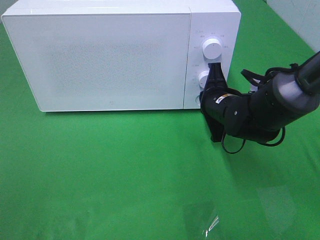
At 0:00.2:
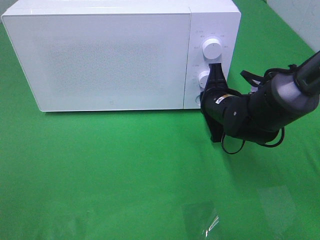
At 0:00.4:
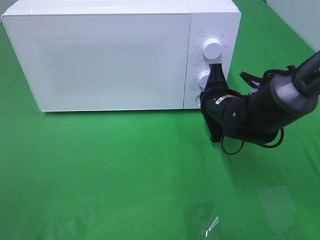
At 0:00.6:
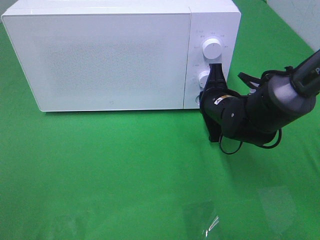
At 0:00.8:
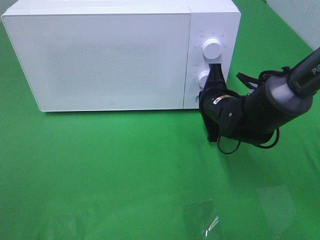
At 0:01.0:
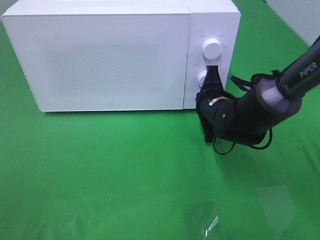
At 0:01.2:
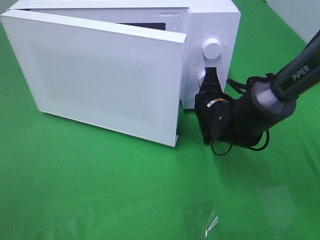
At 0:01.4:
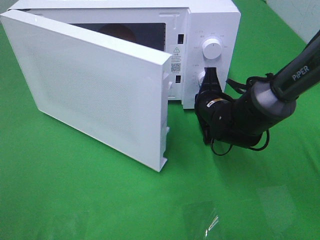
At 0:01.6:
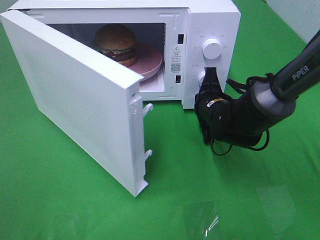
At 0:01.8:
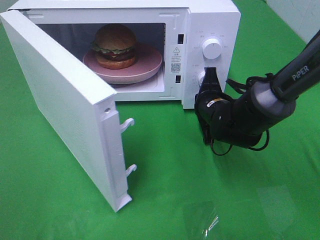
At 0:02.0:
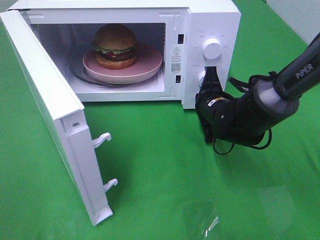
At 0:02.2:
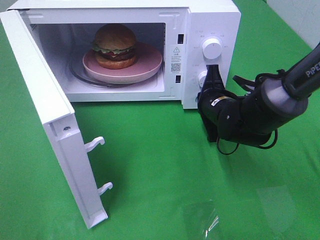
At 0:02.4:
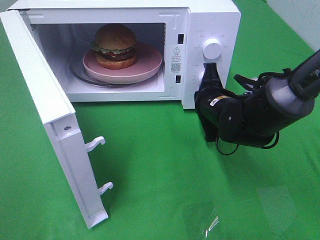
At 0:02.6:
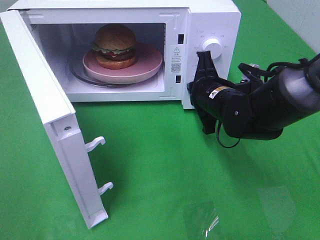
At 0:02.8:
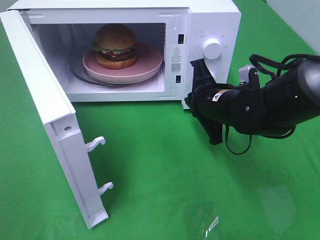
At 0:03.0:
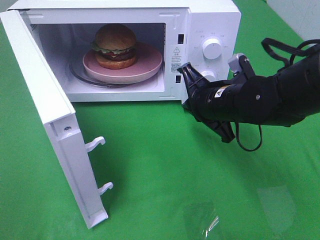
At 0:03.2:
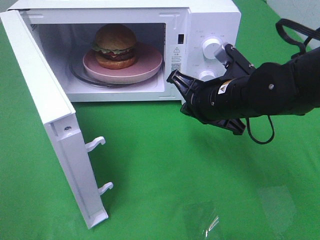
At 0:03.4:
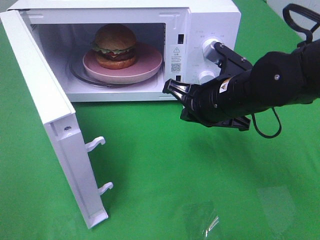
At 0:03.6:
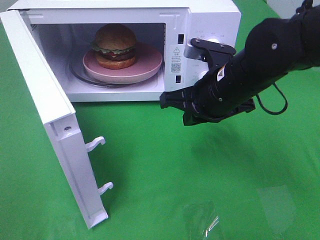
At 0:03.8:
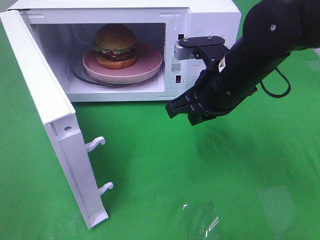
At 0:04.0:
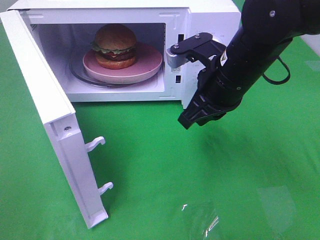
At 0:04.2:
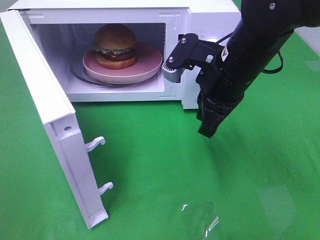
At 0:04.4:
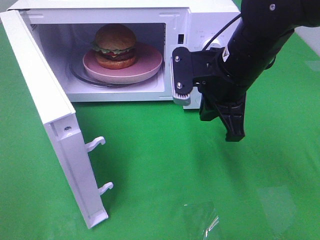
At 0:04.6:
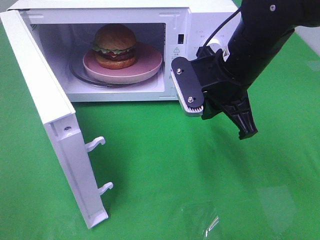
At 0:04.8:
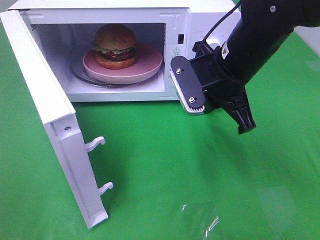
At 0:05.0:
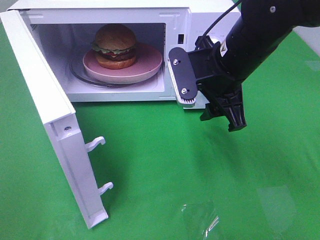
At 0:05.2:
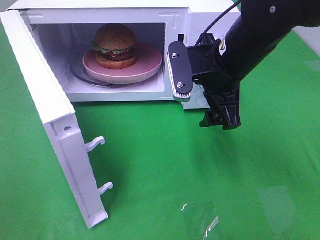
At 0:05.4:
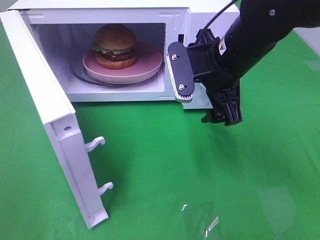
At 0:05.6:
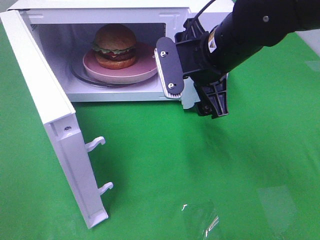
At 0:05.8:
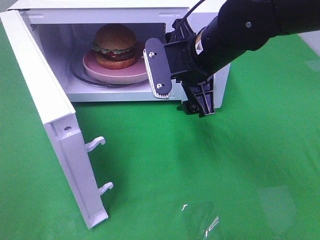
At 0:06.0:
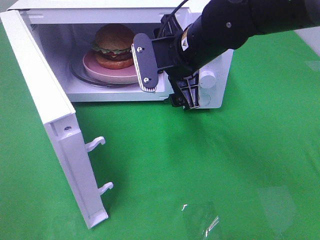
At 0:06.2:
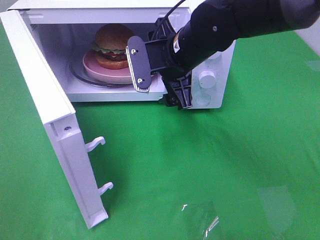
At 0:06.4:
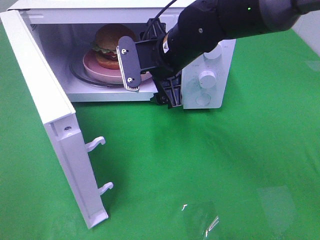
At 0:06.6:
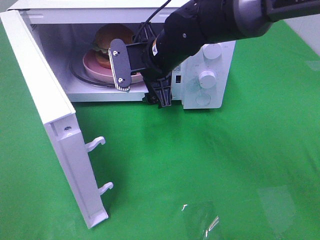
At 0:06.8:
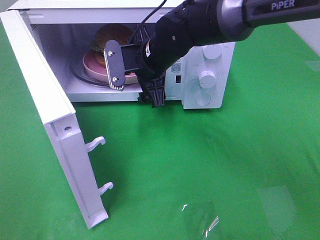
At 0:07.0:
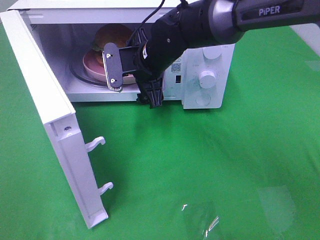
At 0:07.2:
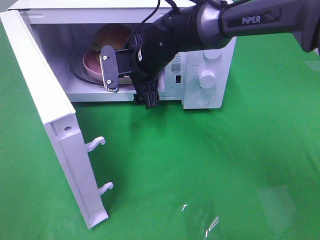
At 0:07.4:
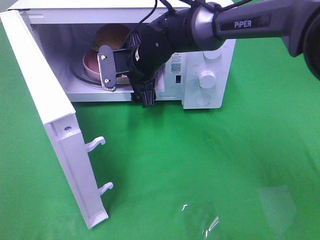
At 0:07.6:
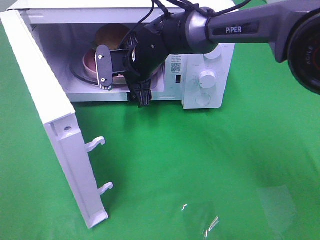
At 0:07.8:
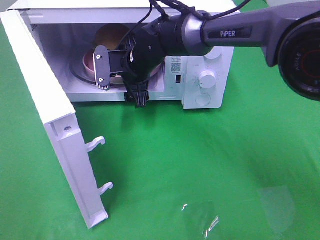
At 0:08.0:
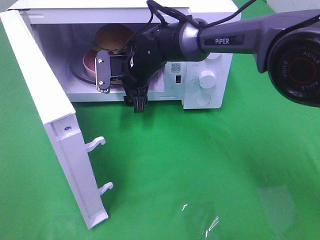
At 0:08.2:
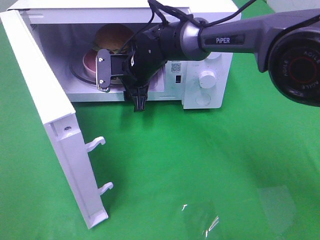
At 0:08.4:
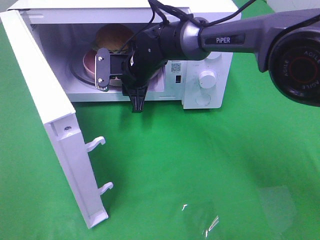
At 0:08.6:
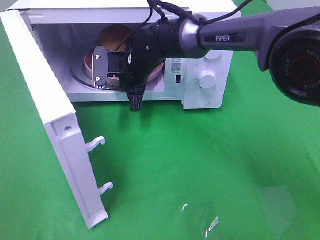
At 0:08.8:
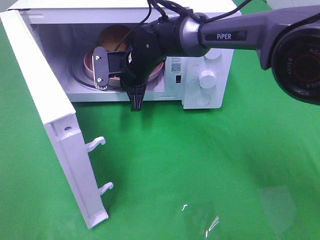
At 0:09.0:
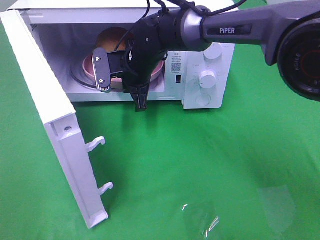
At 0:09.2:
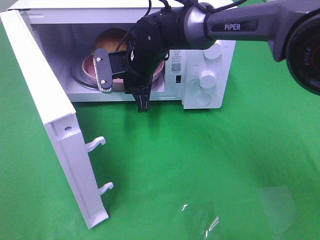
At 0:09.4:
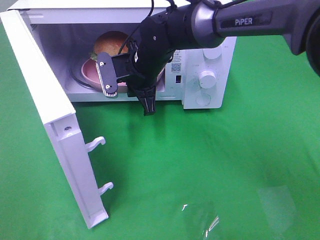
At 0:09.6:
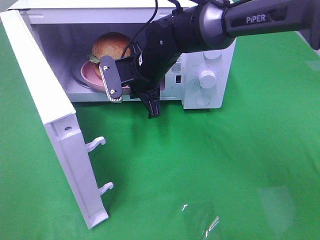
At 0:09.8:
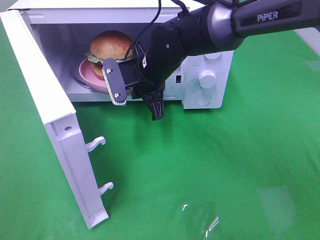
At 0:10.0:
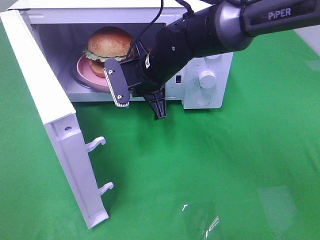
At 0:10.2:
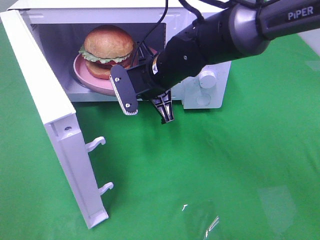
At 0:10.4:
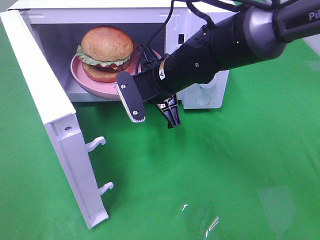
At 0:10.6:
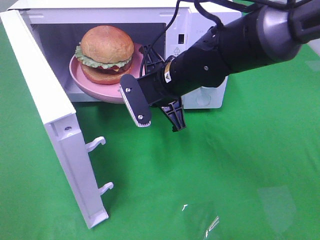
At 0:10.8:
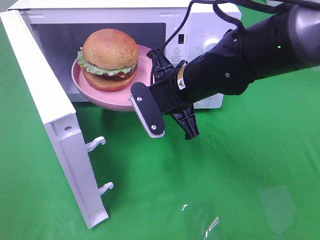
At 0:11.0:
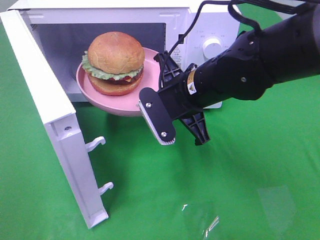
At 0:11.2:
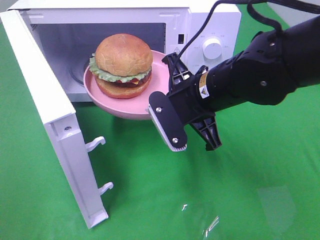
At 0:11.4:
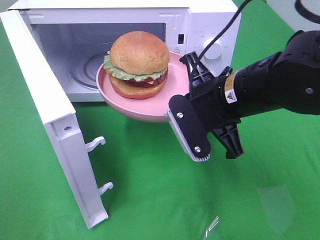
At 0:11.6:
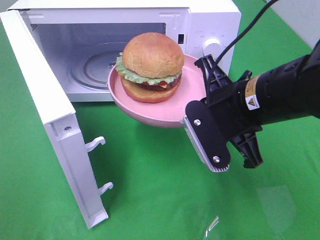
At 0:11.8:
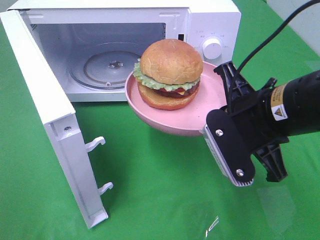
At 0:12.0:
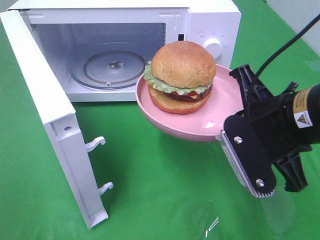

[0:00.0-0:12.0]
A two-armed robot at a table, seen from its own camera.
Task of the whole recording: Heat the burger.
Step, 0:00.0 to 0:02.4: Right hand: press the switch.
Step, 0:02.6 to 0:09.4: Right hand: grab the plate with the hamburger.
0:01.6 to 0:03.0: The right gripper goes roughly 10 cm upward and backward.
0:03.0 to 0:04.4: The right gripper goes approximately 5 cm upward.
0:04.4 to 0:06.0: The right gripper goes roughly 5 cm to the left, and opens.
0:06.0 to 0:07.6: The right gripper is displaced forward, to the left and downward by approximately 15 cm.
0:07.6 to 0:09.0: The right gripper closes its fingers.
0:09.0 to 0:10.4: The right gripper travels backward and to the right by about 10 cm.
0:10.4 to 0:12.0: The right gripper moves backward and to the right, about 20 cm.

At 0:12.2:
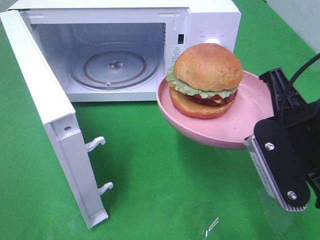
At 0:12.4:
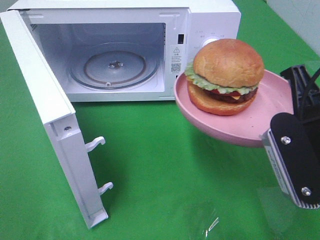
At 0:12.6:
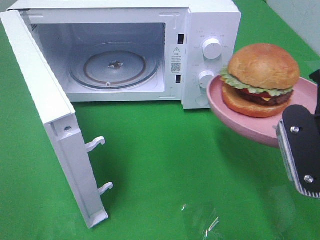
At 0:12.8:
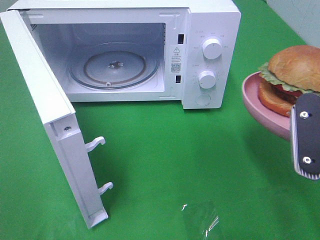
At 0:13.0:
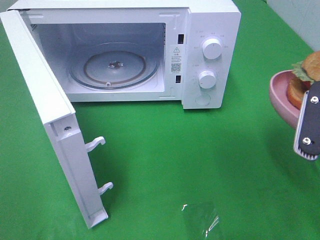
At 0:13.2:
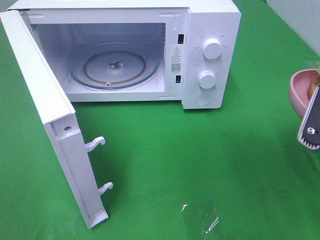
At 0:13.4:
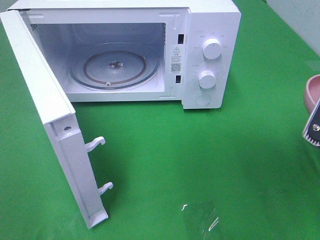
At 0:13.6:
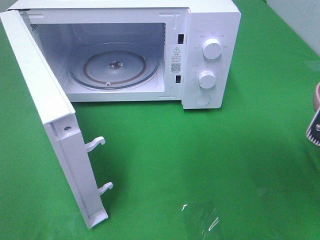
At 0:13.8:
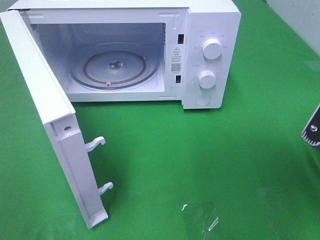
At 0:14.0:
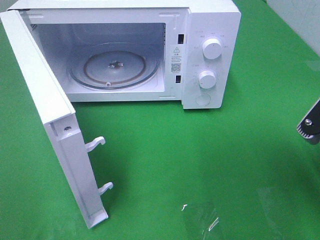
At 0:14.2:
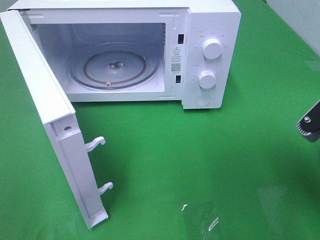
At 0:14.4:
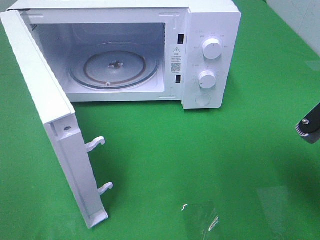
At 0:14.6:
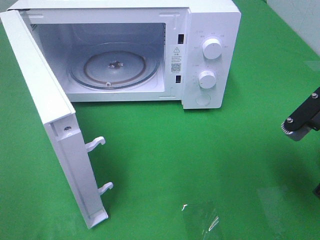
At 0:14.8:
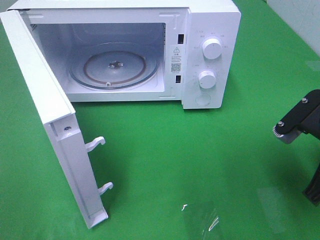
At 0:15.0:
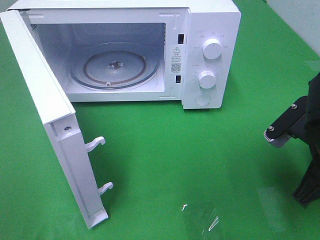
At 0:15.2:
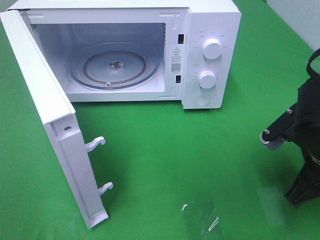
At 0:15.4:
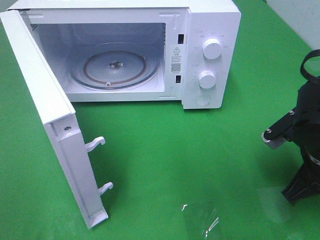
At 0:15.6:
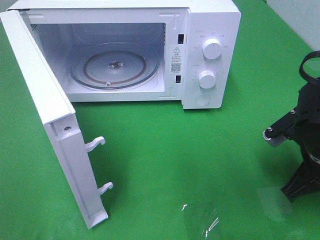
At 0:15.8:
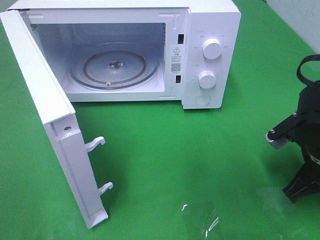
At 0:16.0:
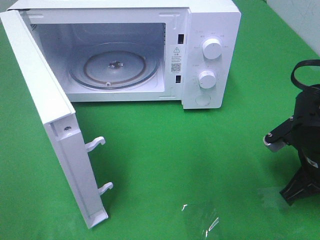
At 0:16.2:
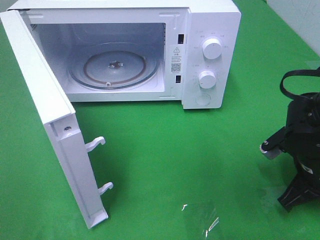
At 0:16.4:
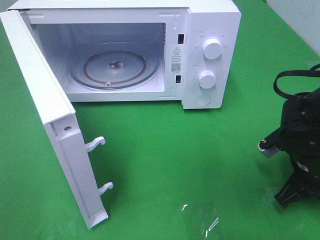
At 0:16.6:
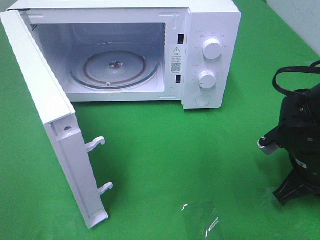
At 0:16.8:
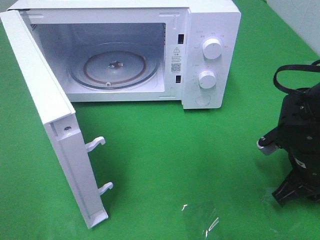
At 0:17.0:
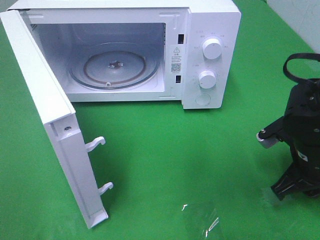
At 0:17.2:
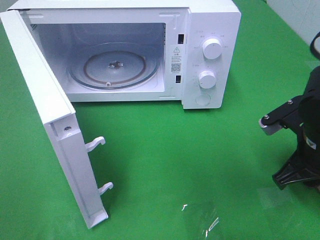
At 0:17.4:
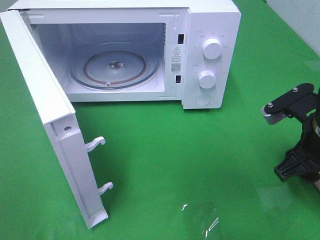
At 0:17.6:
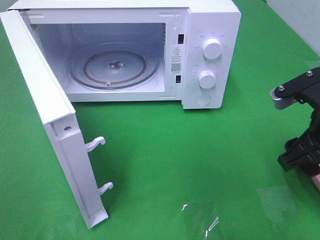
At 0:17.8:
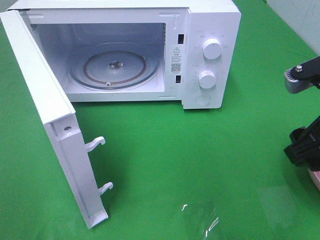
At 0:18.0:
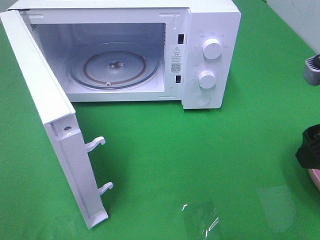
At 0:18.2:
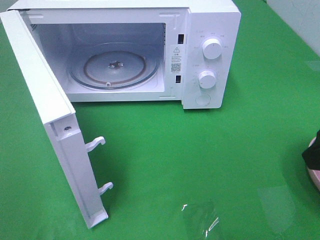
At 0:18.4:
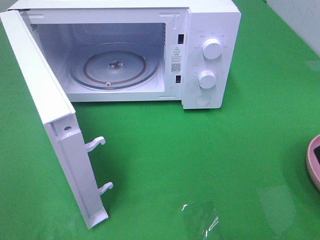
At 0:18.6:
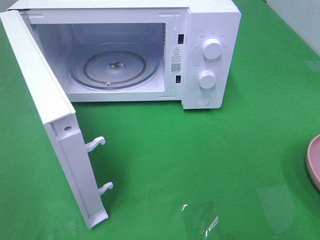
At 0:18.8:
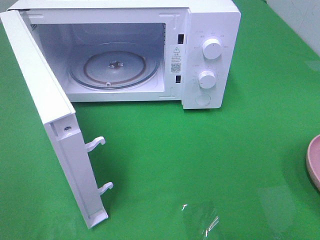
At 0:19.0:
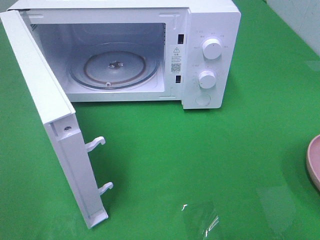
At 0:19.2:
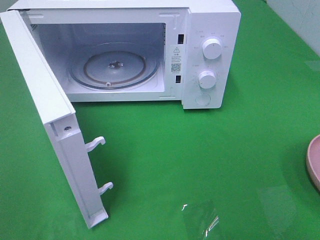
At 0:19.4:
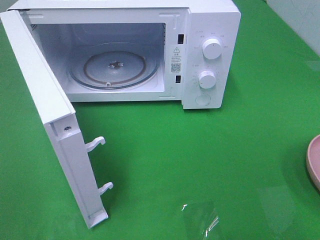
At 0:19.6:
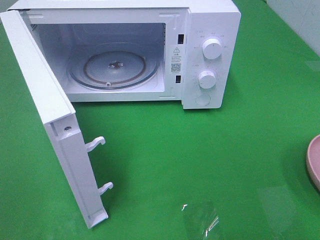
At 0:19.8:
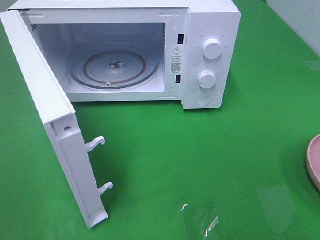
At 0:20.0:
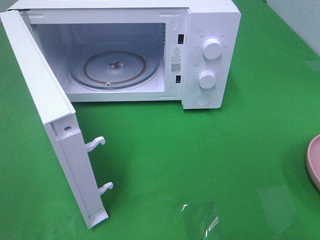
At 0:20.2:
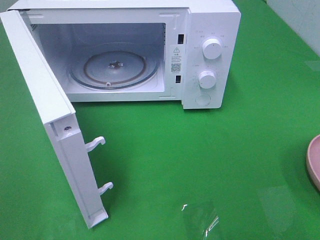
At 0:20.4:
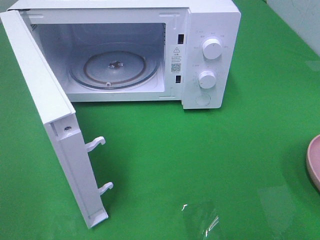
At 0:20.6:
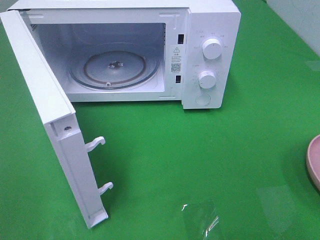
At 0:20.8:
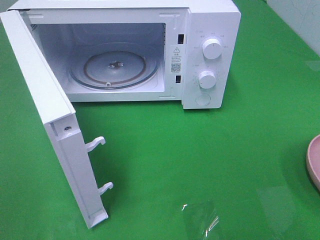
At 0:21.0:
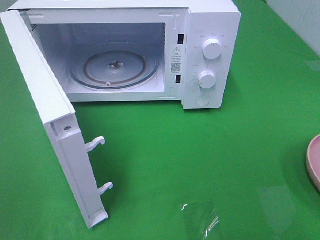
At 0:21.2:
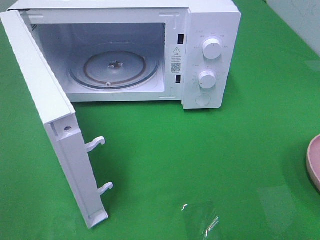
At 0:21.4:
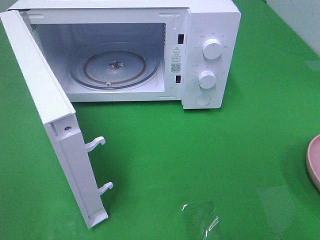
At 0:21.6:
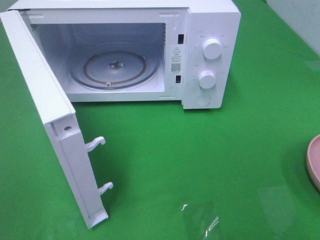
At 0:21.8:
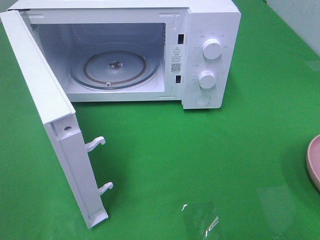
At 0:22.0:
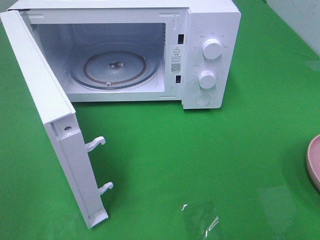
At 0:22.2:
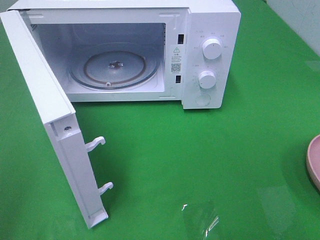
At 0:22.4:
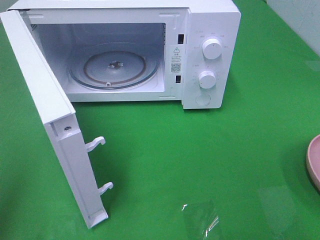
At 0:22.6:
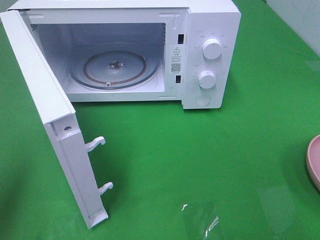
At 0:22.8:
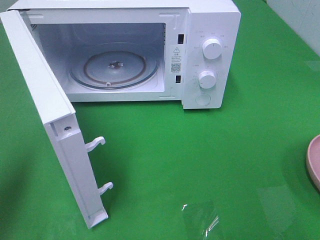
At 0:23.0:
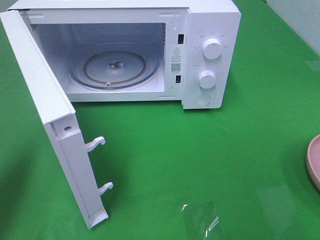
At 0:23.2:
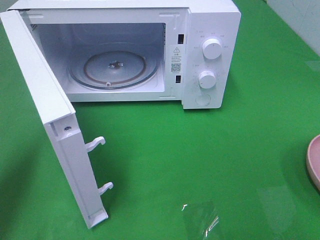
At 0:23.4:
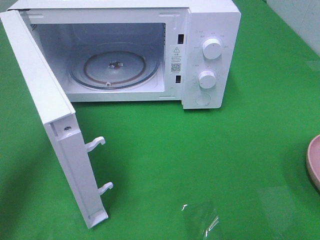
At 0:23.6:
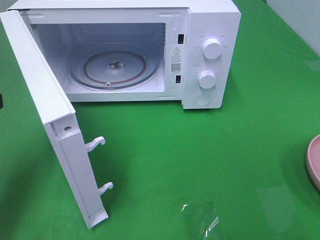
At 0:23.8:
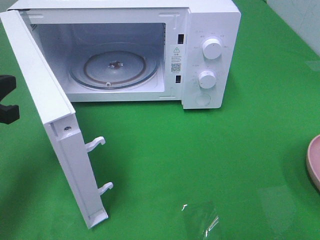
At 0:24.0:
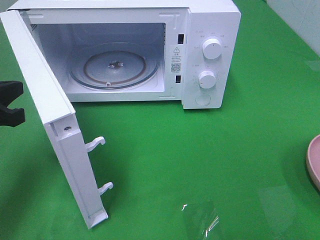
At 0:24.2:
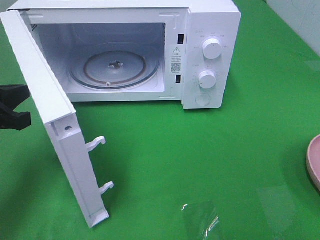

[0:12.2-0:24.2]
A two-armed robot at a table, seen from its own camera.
Task of the whole recording: Heat the burger.
Step, 0:12.2 to 0:17.2: Right hand: place the plate on the table.
0:12.2 to 0:13.8: The right gripper shifts about 5 cm to the right.
0:13.8 to 0:15.2: The right gripper goes about 10 cm downward.
0:15.2 to 0:16.6: The right gripper shifts roughly 5 cm downward.
0:16.6 to 0:18.2: The right gripper moves upward and backward, roughly 20 cm, and opens.
0:19.8 to 0:21.2: The two grippers keep their place.
0:21.2 to 0:22.6: The left gripper travels forward by about 10 cm, and closes its fingers.
0:22.6 to 0:24.2: The left gripper moves downward, forward and to the right, about 15 cm.
